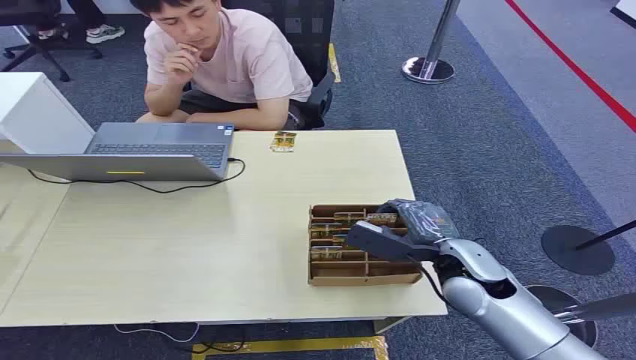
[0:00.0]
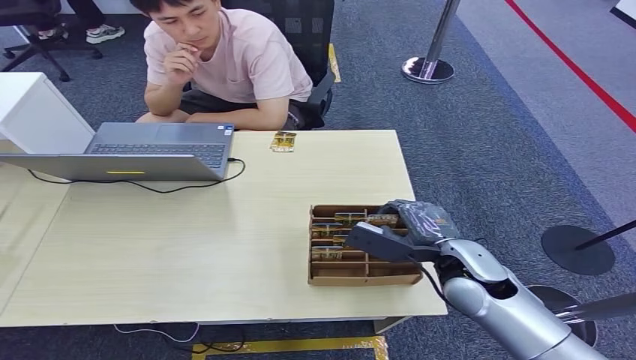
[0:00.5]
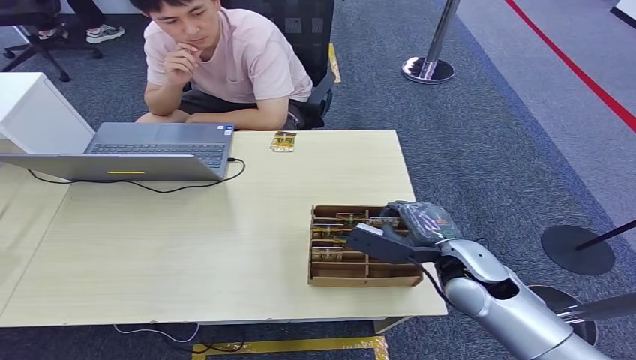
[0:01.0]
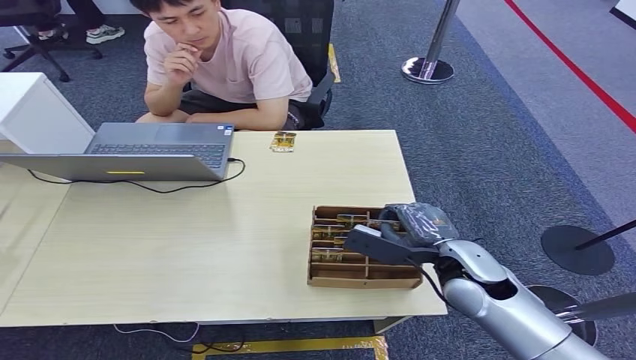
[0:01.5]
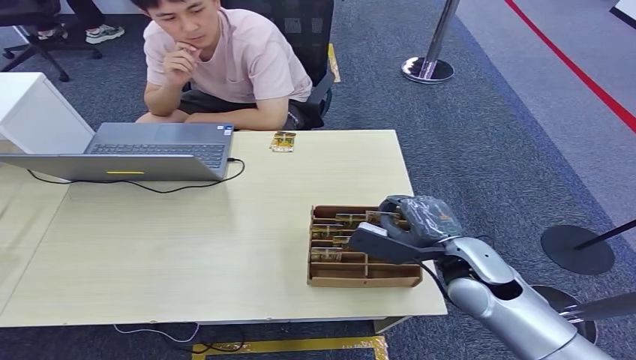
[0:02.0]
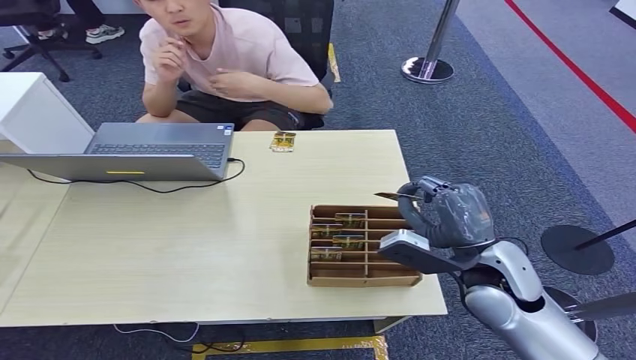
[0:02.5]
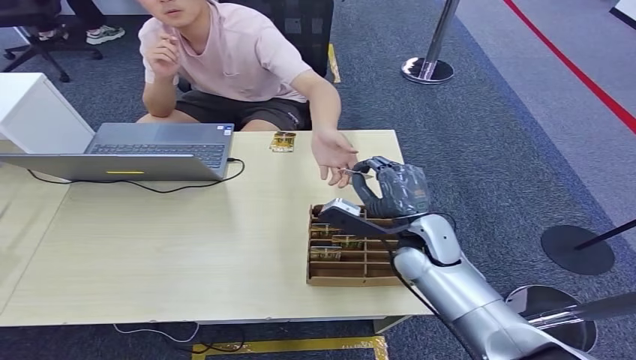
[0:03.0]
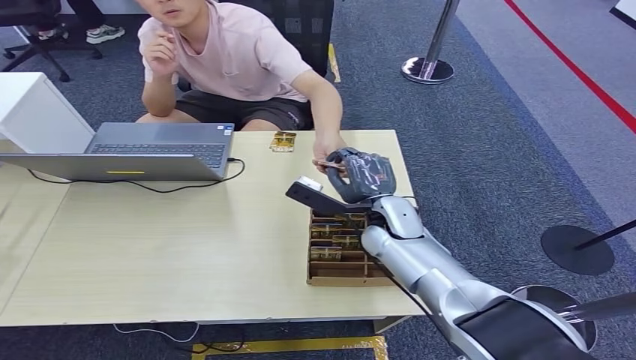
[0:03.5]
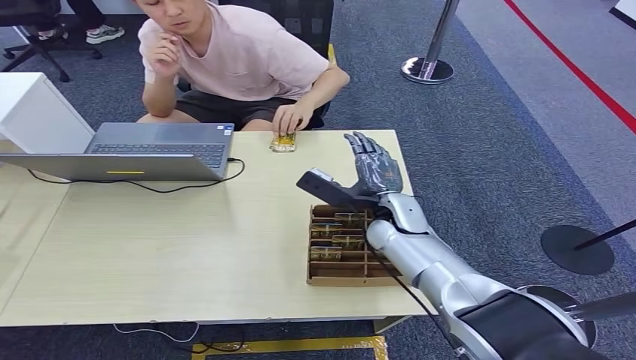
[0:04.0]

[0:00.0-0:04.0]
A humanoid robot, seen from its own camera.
Step, 0:00.0 to 0:02.5: Pick up the room card from the card holder.
Step, 0:03.0 to 0:04.0: Hand the room card to the target.
0:02.0 to 0:04.0: The right hand is displaced forward and to the left by roughly 15 cm.

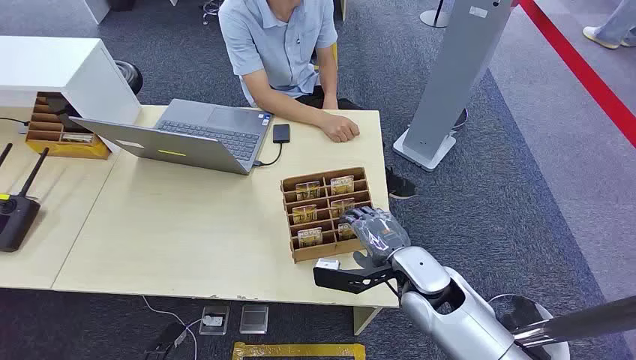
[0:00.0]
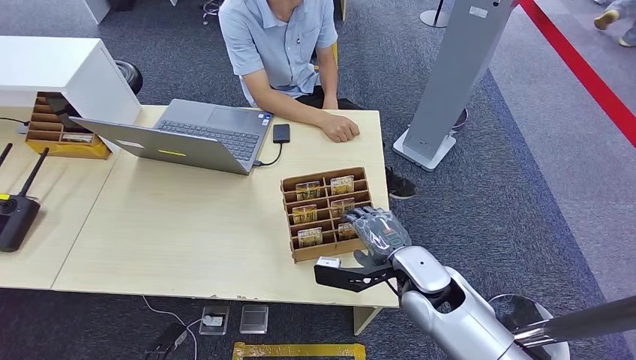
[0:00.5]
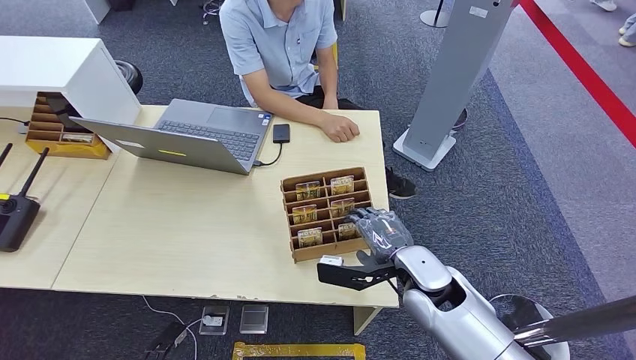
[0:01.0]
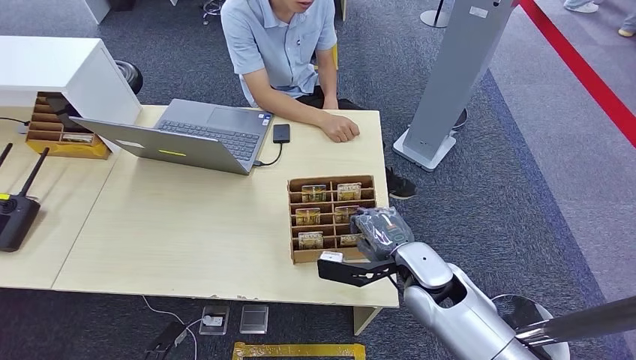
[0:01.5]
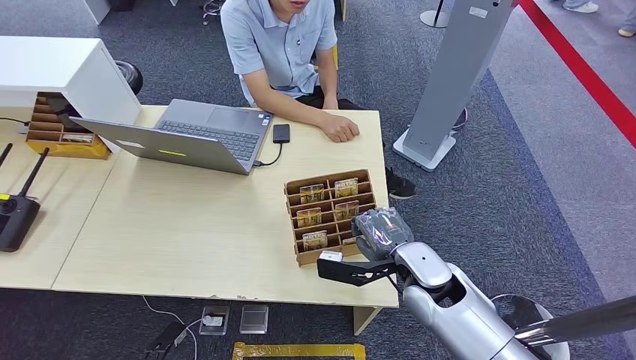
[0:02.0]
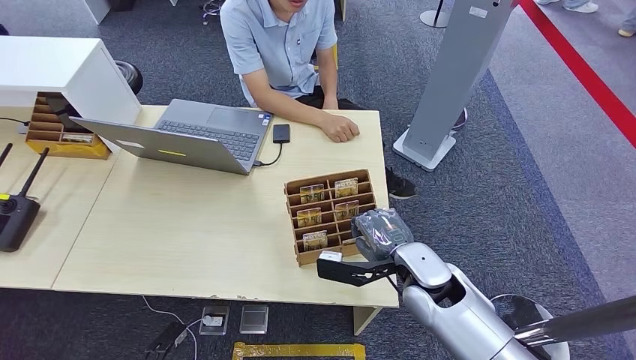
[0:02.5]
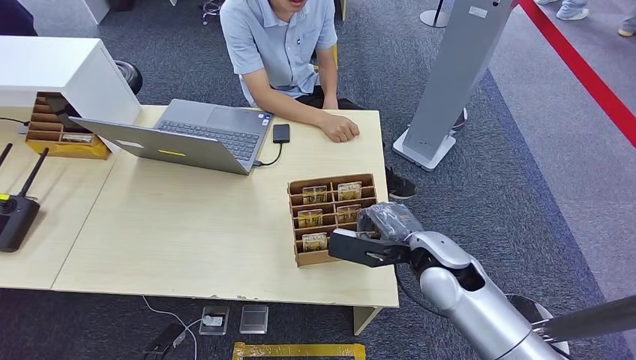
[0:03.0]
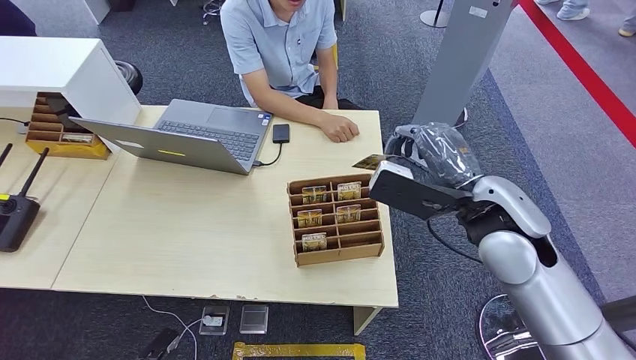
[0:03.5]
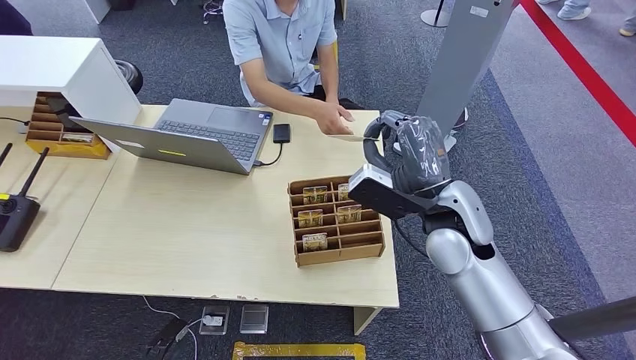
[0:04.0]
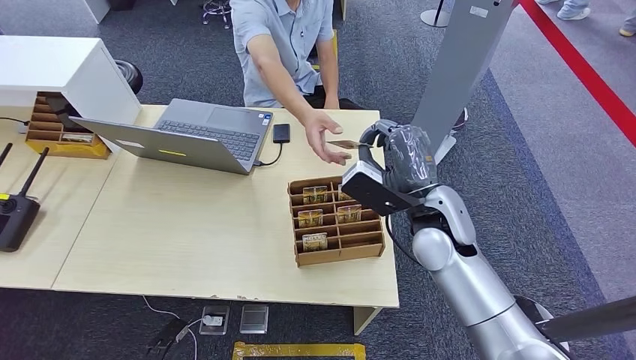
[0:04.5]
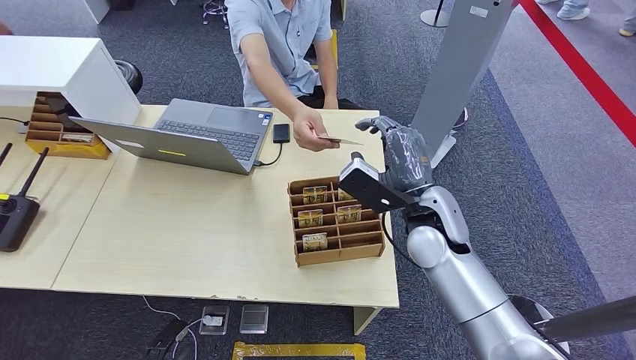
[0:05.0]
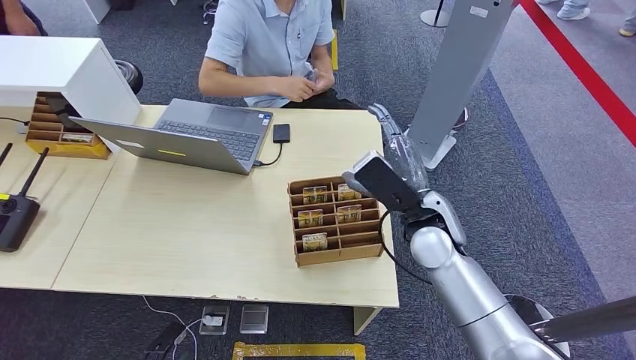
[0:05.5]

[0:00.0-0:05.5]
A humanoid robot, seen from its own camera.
Step, 0:00.0 to 0:03.0: Pick up the room card from the card holder.
Step, 0:04.0 to 0:05.0: Hand the room card to the target.
0:02.0 to 0:03.5: The right hand is displaced upward by roughly 15 cm.
0:03.5 to 0:05.5: The right hand moves downward and to the left, about 10 cm.
